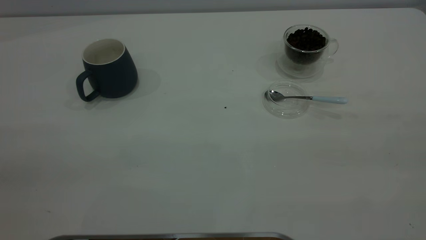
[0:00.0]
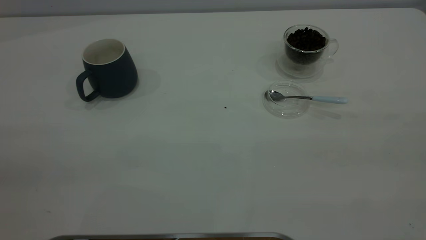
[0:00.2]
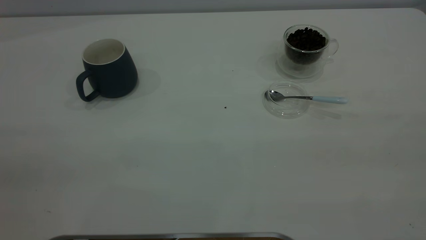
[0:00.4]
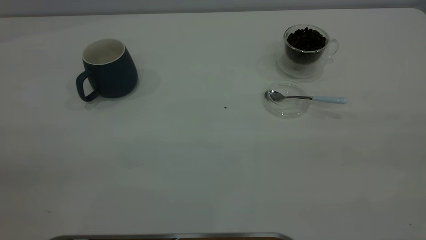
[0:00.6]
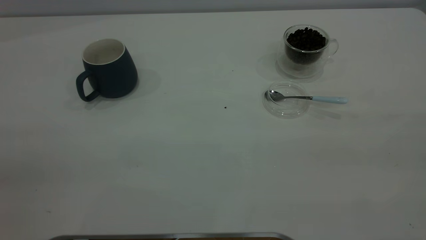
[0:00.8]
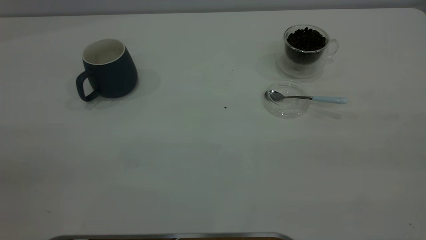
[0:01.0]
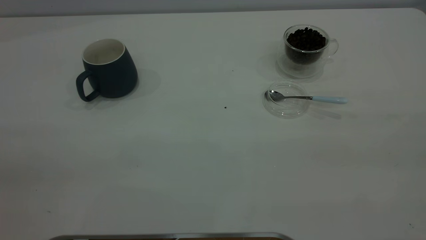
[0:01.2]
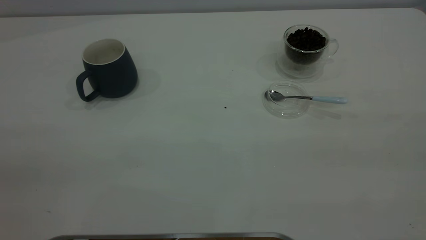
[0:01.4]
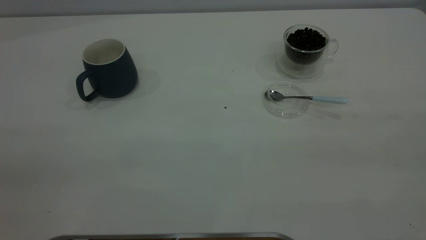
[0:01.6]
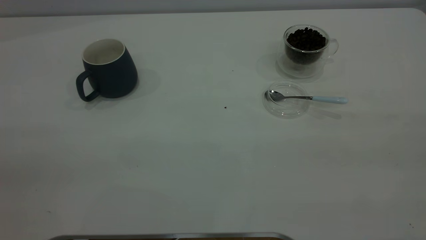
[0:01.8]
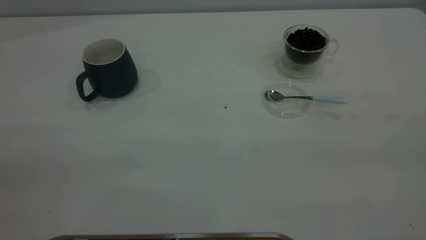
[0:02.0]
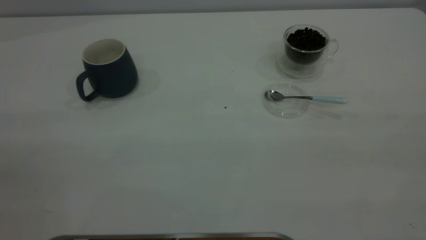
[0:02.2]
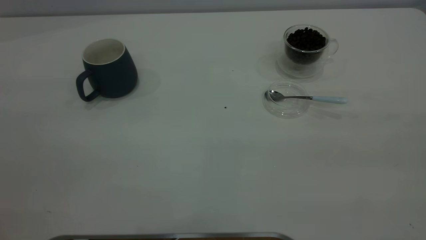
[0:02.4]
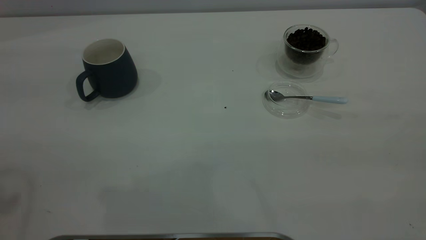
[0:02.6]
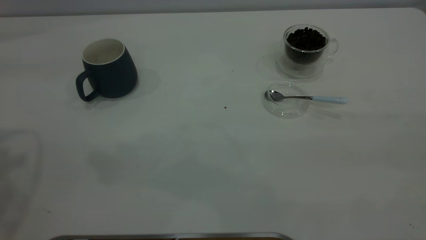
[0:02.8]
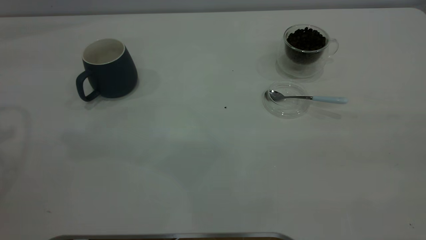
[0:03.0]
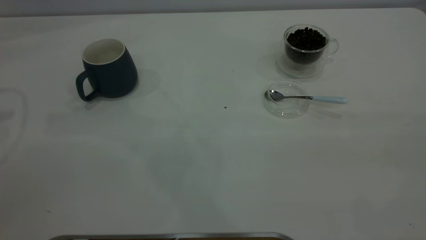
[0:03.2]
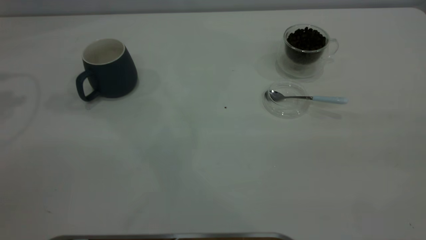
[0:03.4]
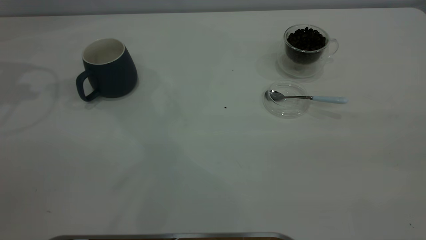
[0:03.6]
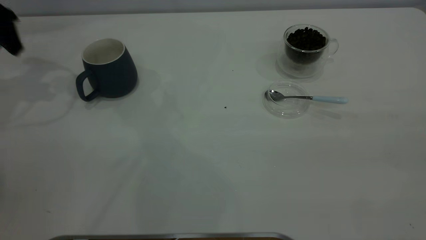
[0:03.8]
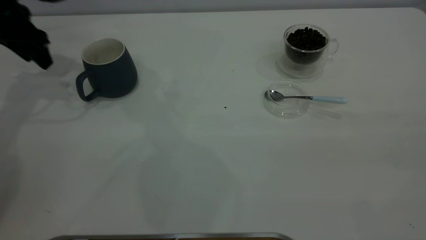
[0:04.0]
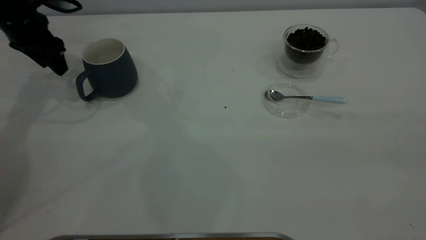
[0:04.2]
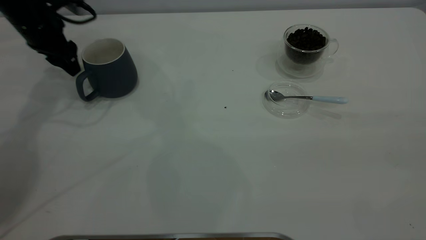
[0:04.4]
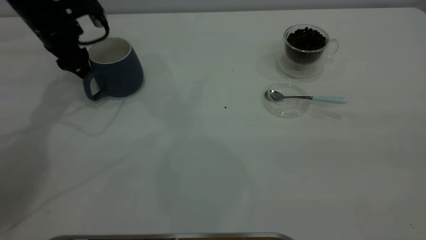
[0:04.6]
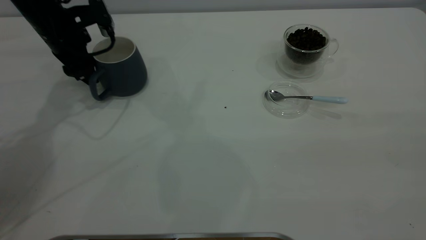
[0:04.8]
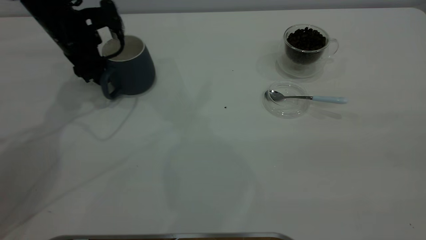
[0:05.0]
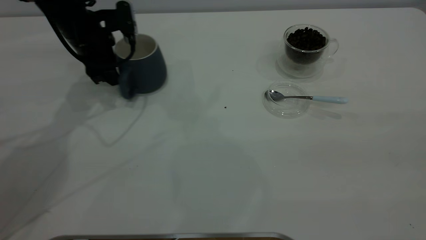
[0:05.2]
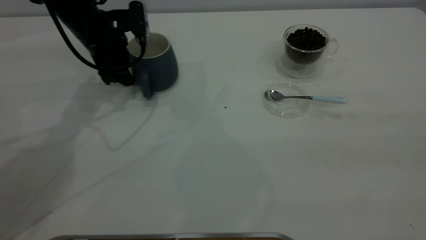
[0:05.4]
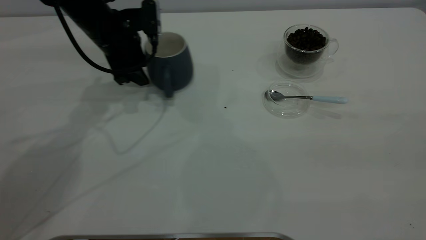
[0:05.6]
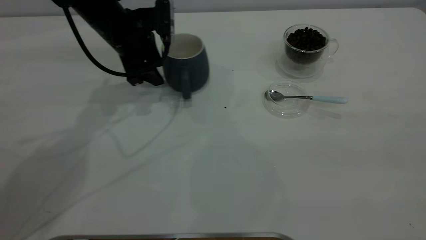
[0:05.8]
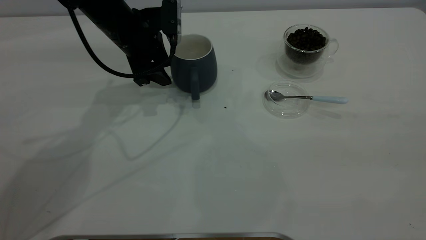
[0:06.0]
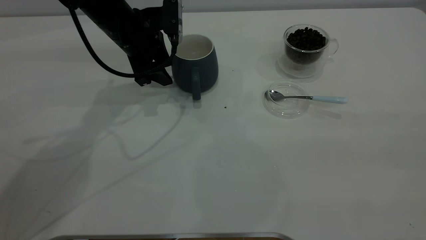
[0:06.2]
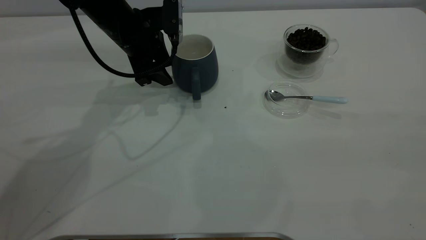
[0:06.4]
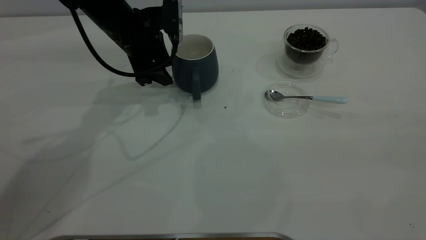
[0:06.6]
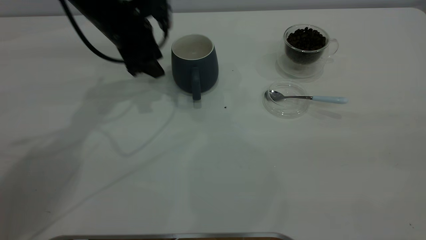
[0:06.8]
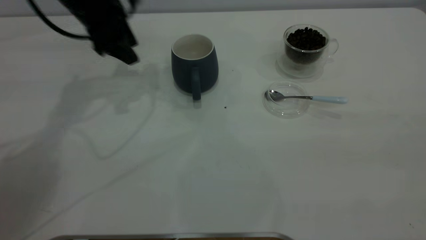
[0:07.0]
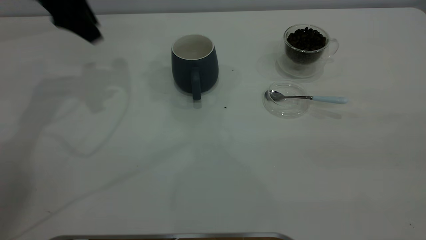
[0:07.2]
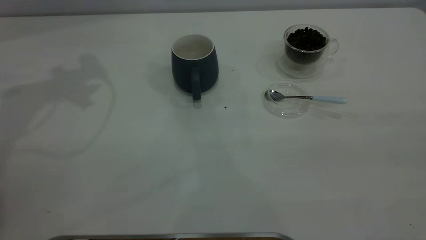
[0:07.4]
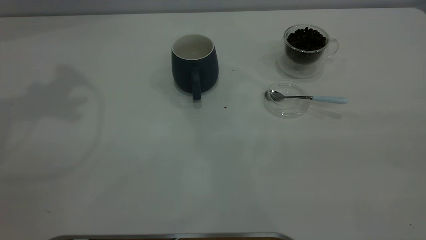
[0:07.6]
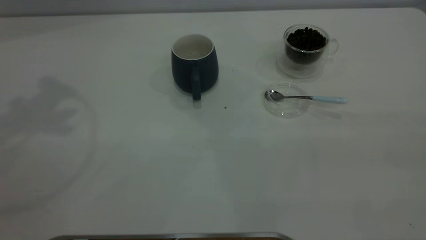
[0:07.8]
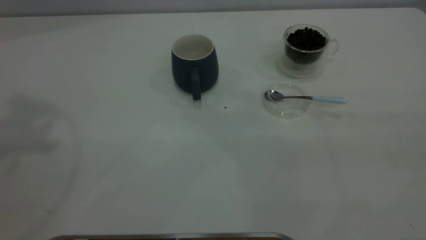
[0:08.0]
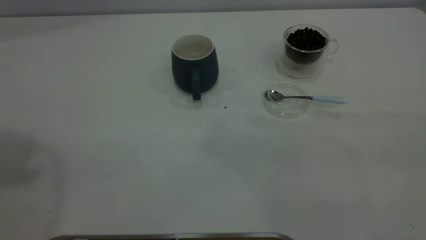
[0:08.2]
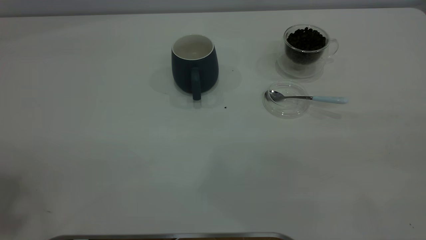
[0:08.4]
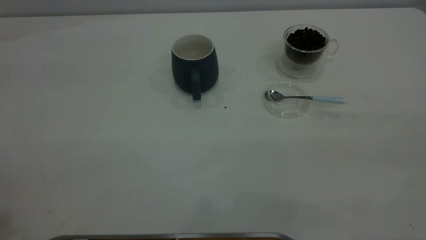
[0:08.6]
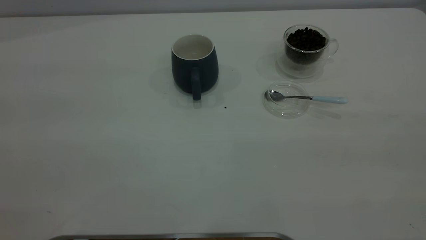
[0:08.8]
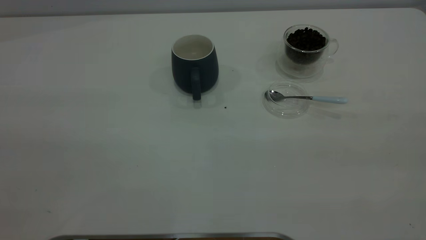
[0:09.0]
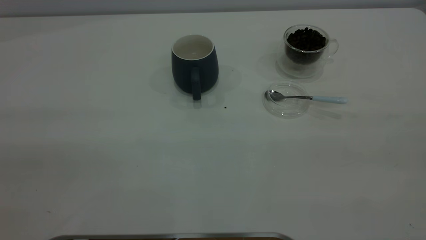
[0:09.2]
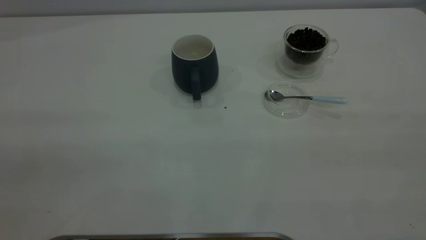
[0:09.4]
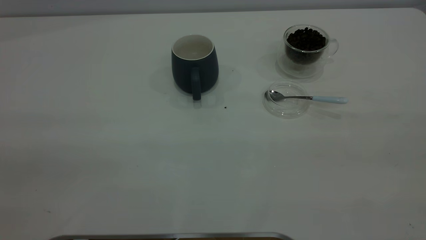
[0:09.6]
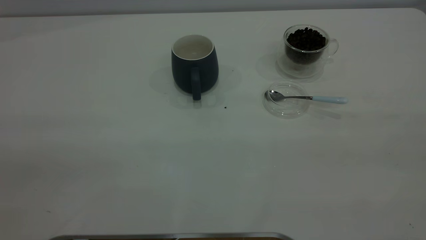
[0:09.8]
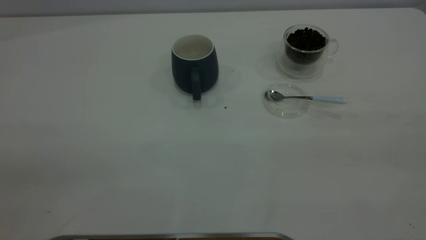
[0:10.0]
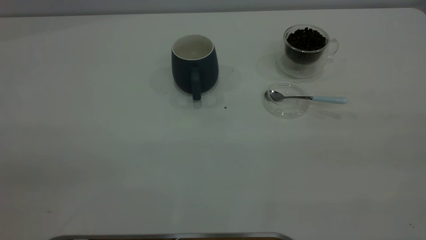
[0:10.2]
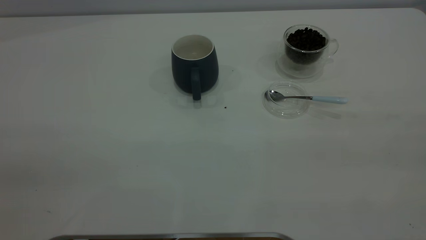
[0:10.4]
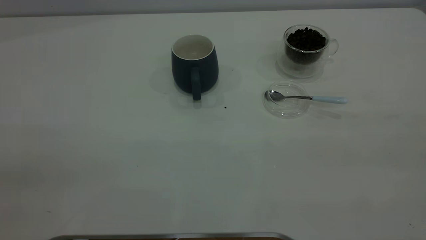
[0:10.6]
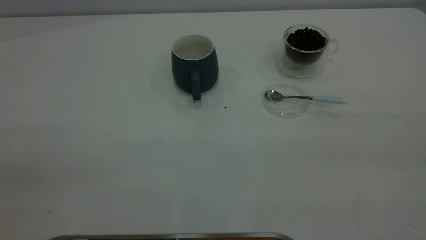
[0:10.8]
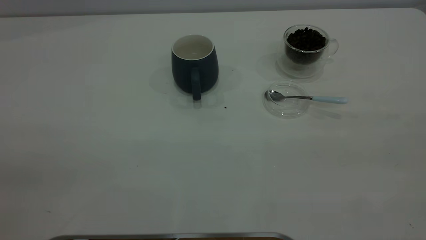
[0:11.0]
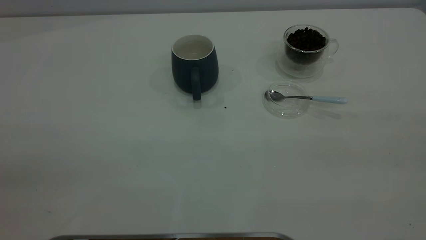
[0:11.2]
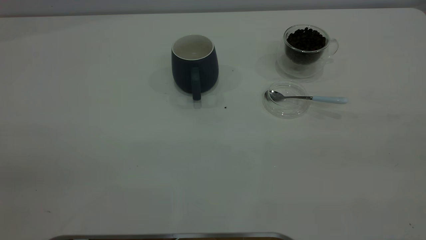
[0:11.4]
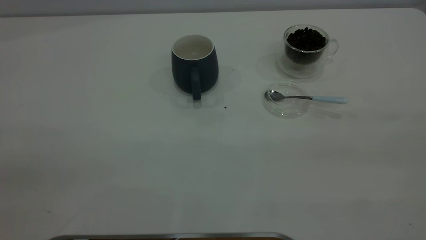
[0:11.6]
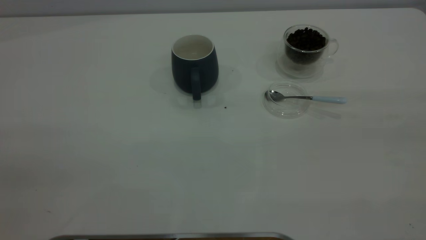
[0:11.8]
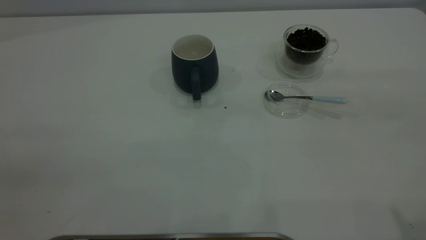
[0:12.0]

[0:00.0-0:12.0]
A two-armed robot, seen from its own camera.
Task of the whole recording: the left gripper place the grey cup in the center of the table, the right gripper take the blue spoon from the cup lid and scoop out the coffee beans from the coffee cup and put them into the grey cup, the right gripper put the spoon back into the cup lid.
Step, 0:00.0 to 0:06.8: Move the cup to the center of view.
0:00.0 to 0:01.6: Both grippers stay put.
0:03.0 to 0:04.4: The left gripper heads downward and forward, covering some 30 cm.
0:04.4 to 0:06.0: The left gripper heads to the right, covering roughly 15 cm.
0:06.0 to 0:07.6: The left gripper moves upward and to the left, about 30 cm.

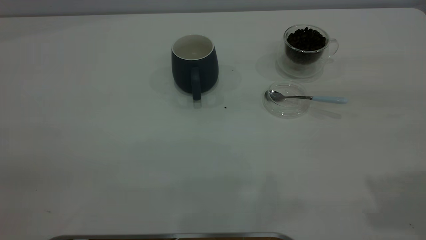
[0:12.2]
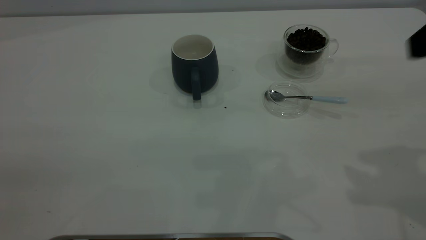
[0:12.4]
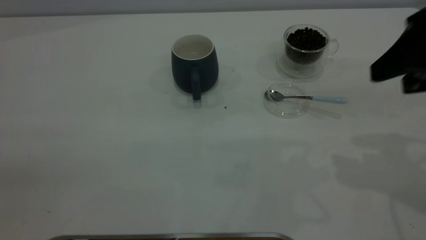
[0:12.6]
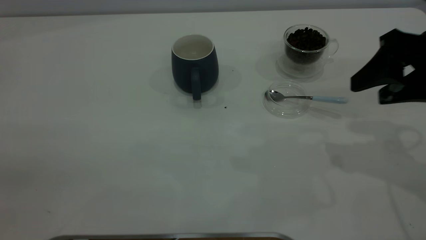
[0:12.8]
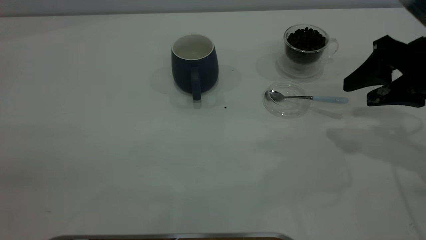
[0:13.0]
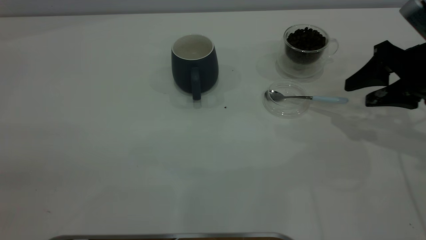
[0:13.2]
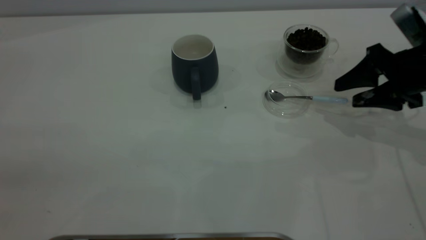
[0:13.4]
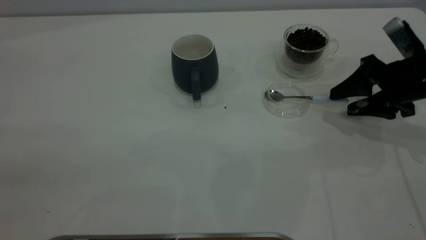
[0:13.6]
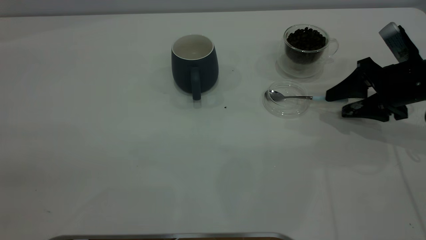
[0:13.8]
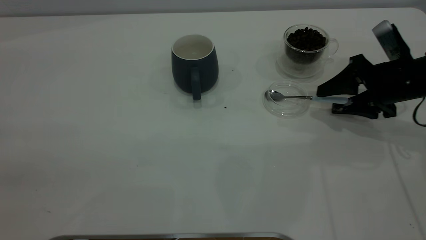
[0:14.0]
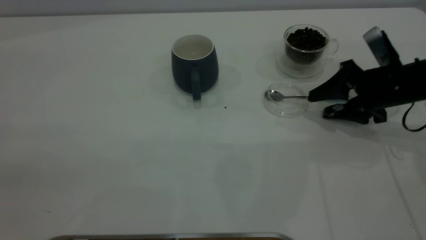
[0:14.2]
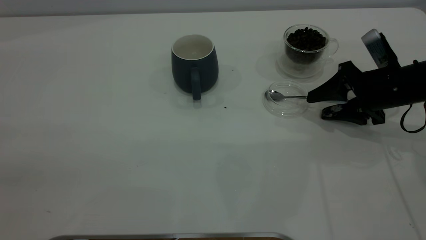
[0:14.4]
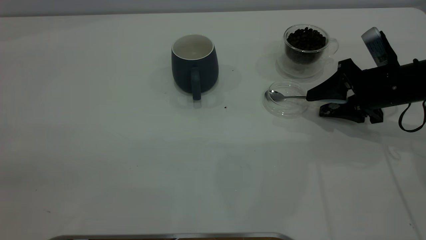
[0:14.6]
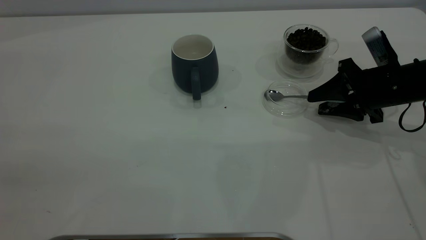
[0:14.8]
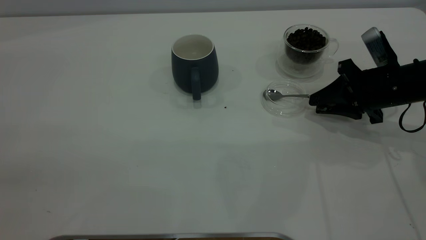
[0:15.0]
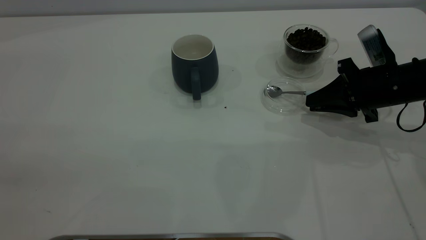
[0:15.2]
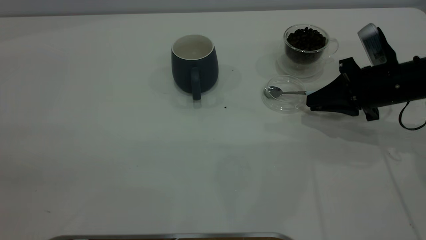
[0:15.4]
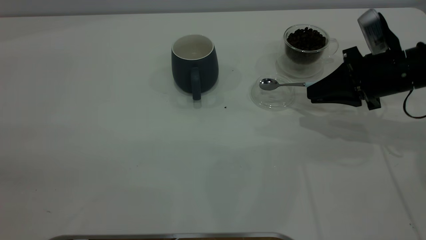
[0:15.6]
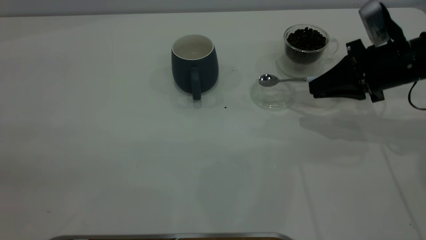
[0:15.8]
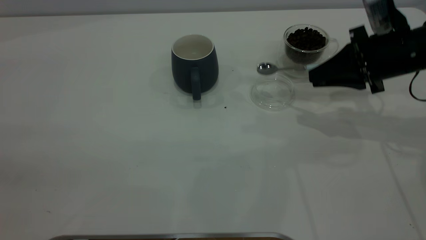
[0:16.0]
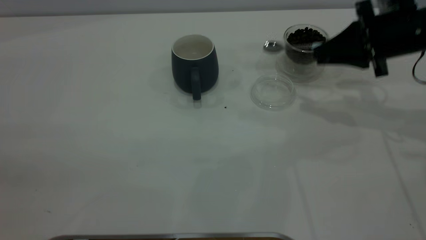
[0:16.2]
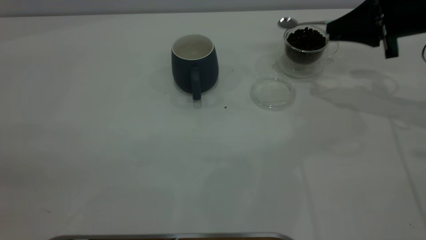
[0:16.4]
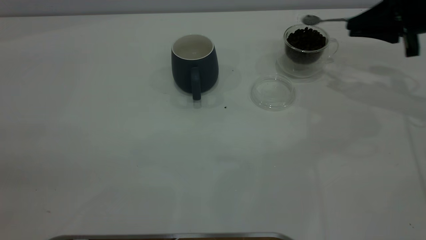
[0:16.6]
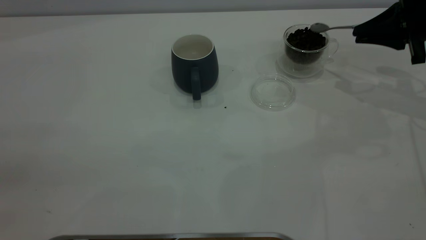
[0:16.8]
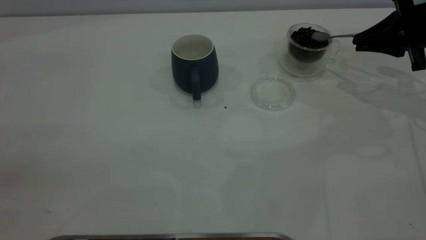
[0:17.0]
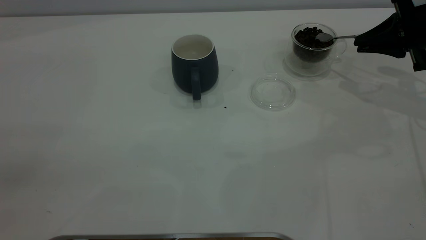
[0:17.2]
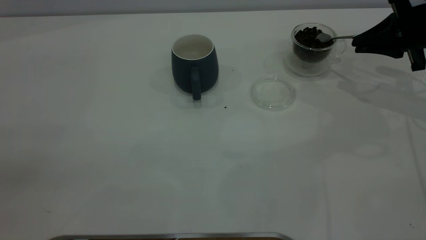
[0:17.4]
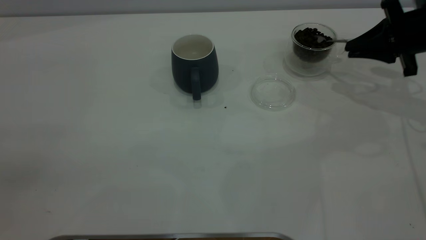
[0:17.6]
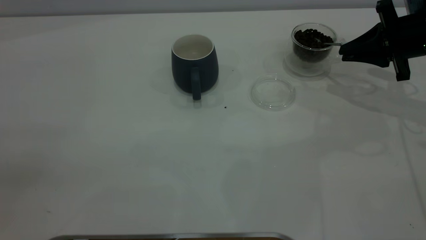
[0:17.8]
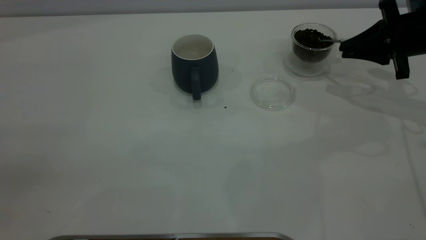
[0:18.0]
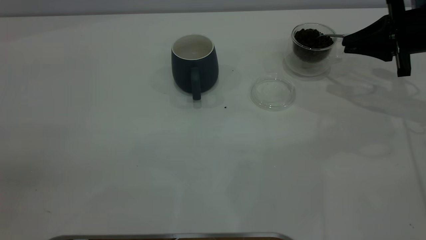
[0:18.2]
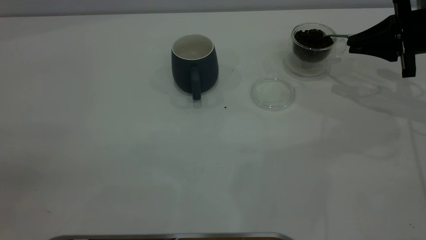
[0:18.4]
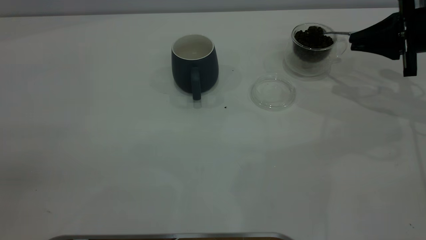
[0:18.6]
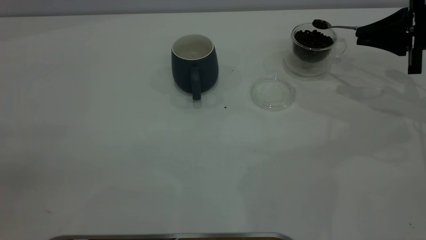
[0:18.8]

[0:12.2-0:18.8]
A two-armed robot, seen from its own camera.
Task of the whole recording: the left gripper place the grey cup in the center of the table, the right gripper take the blue spoon from the cup lid and scoop out the coffee beans from the coffee cup and put them into the grey cup, the right gripper put the spoon back into the cup lid.
Step, 0:12.2 to 0:15.8: Pick up the spoon.
0:12.2 to 0:13.8: The right gripper shifts approximately 30 cm downward and forward.
0:13.8 to 0:15.4: The right gripper closes its fingers.
0:15.4 to 0:17.2: The right gripper shifts roughly 10 cm to the right, upward and forward.
0:17.2 to 0:18.8: The grippers move only a little.
